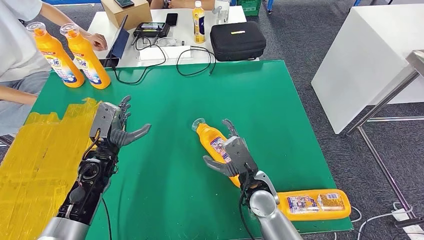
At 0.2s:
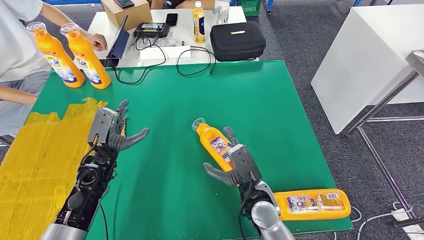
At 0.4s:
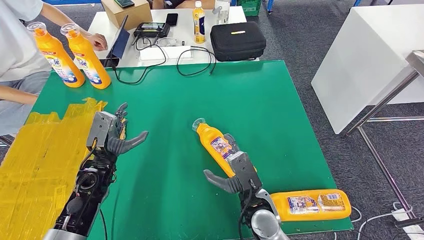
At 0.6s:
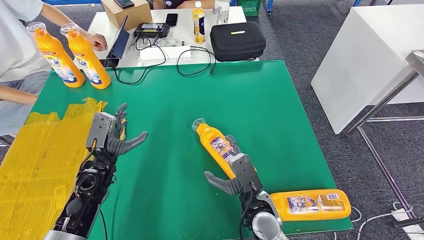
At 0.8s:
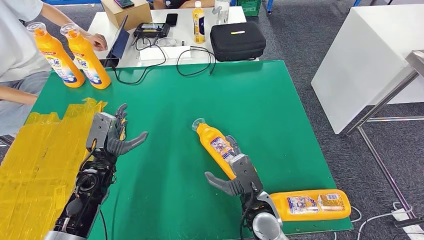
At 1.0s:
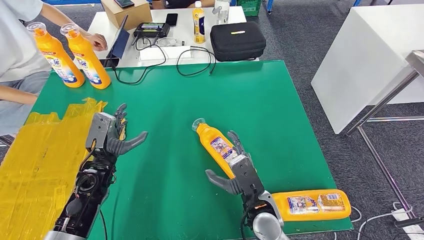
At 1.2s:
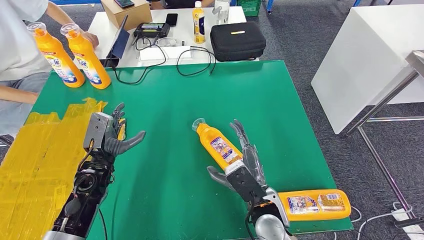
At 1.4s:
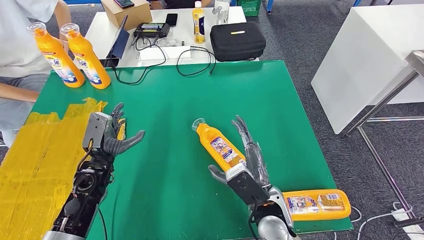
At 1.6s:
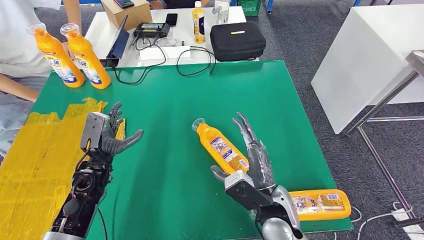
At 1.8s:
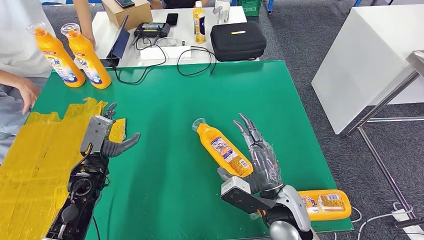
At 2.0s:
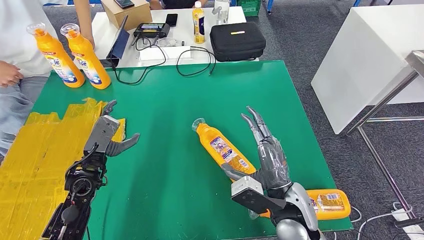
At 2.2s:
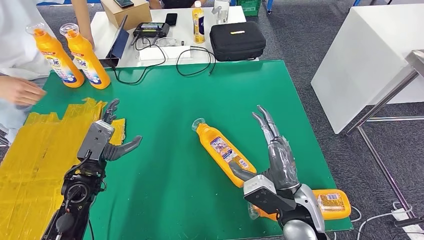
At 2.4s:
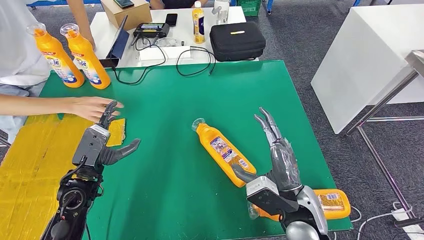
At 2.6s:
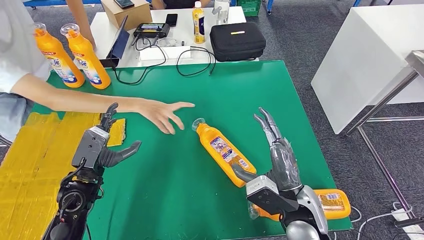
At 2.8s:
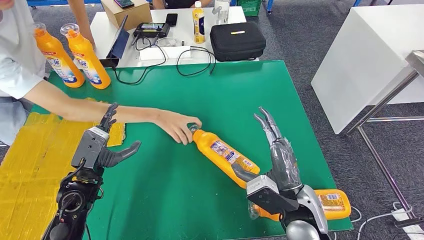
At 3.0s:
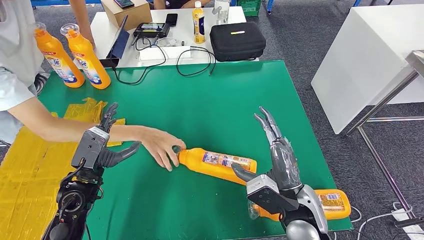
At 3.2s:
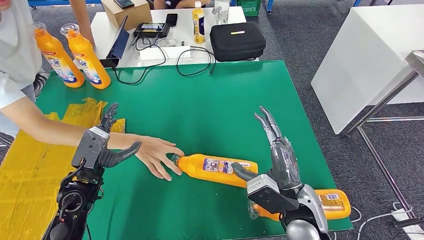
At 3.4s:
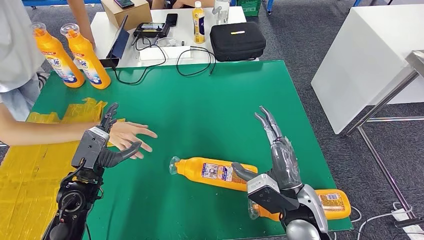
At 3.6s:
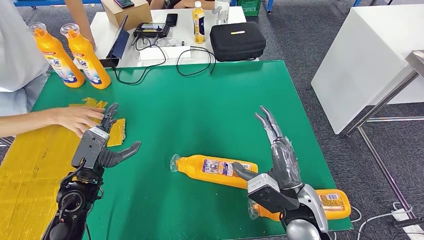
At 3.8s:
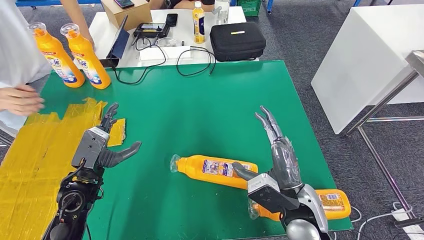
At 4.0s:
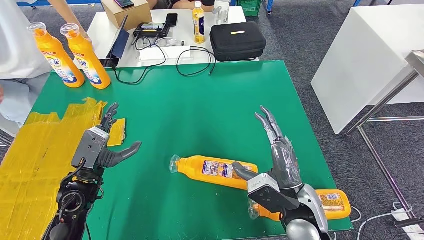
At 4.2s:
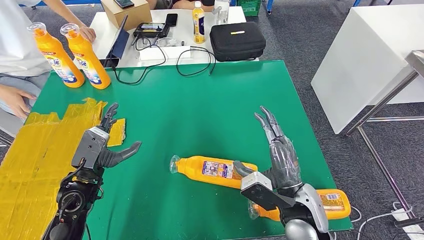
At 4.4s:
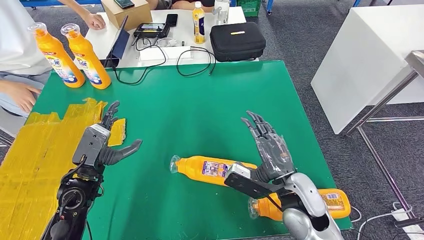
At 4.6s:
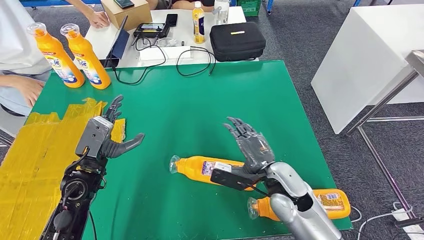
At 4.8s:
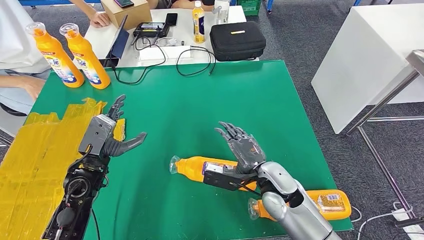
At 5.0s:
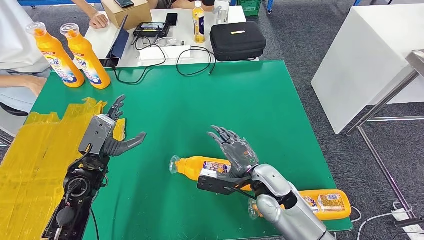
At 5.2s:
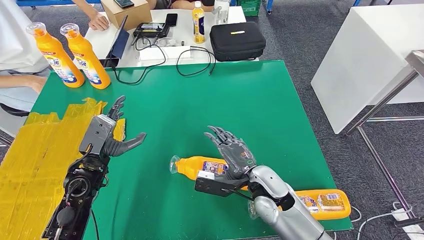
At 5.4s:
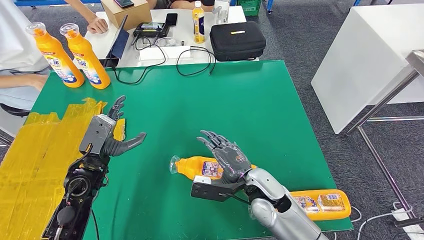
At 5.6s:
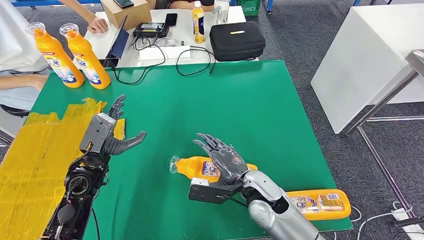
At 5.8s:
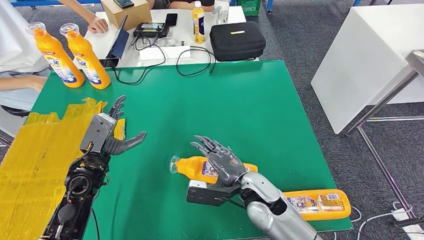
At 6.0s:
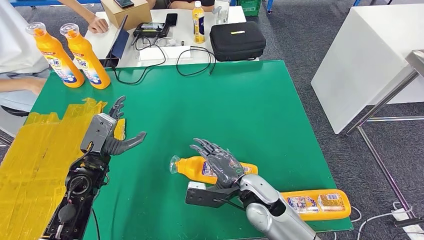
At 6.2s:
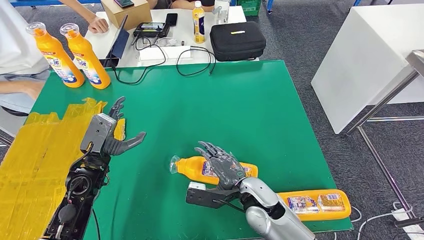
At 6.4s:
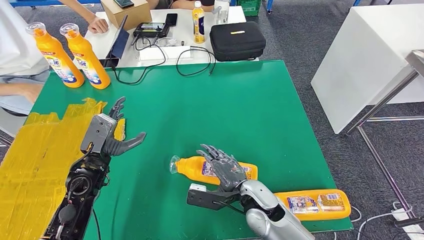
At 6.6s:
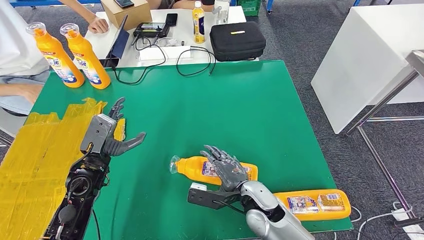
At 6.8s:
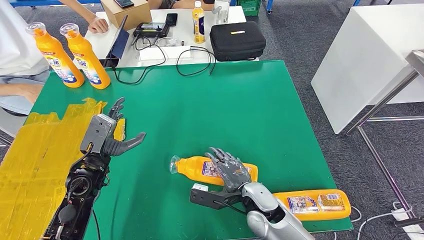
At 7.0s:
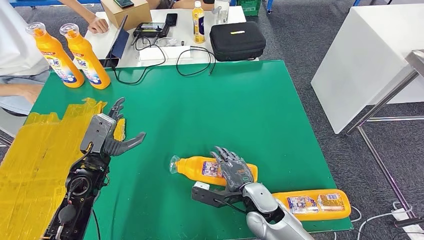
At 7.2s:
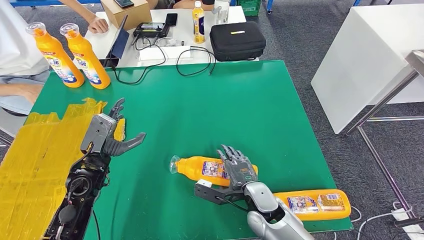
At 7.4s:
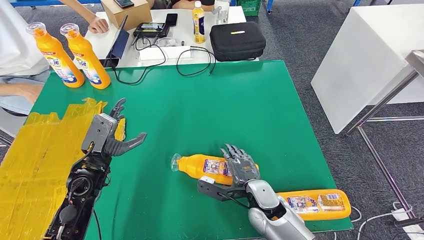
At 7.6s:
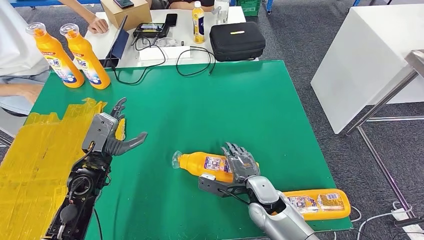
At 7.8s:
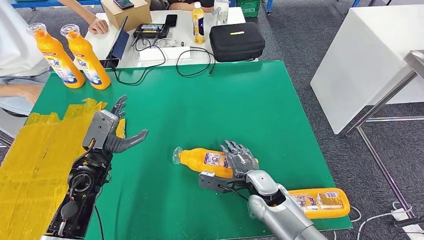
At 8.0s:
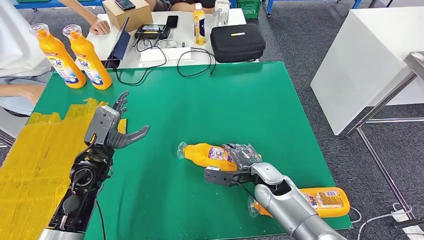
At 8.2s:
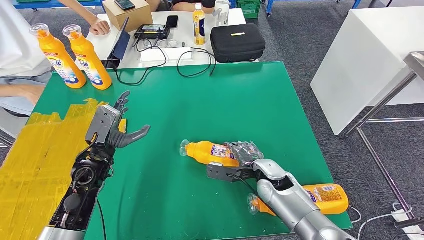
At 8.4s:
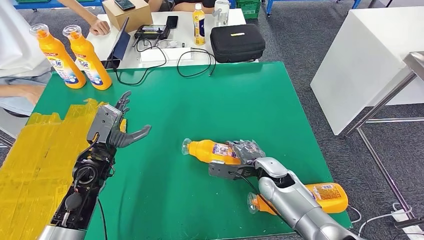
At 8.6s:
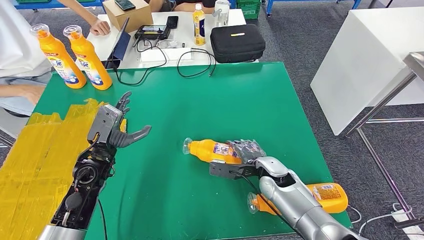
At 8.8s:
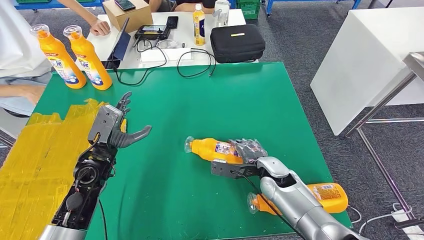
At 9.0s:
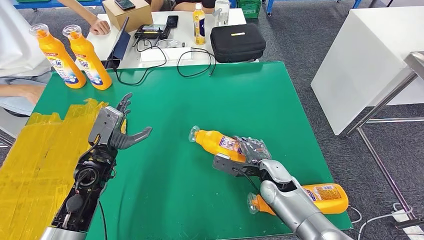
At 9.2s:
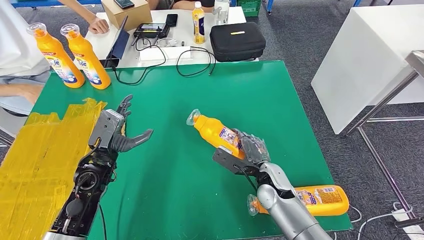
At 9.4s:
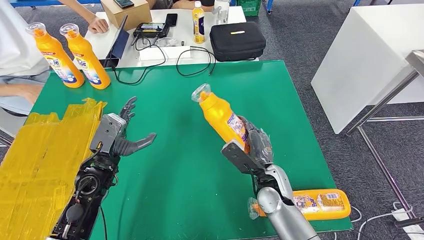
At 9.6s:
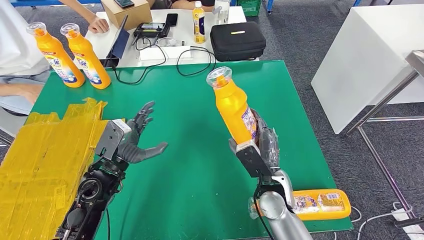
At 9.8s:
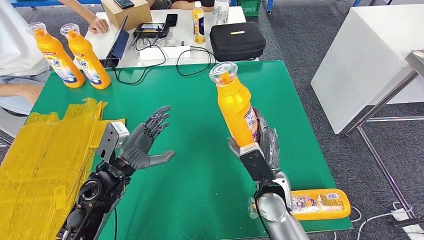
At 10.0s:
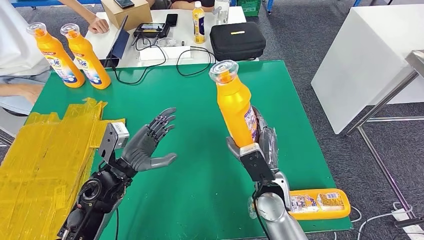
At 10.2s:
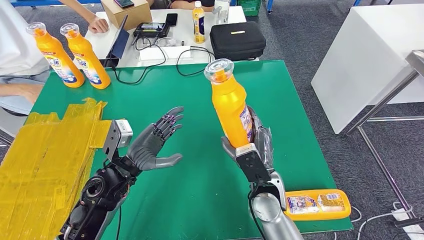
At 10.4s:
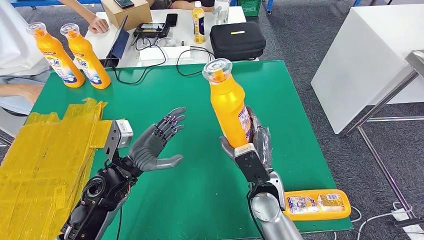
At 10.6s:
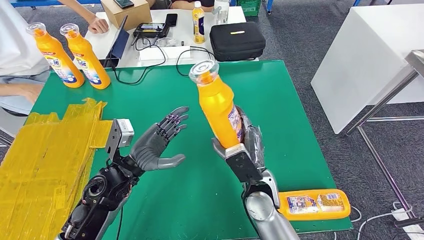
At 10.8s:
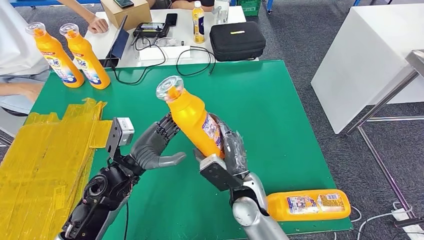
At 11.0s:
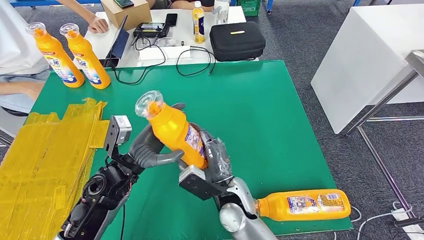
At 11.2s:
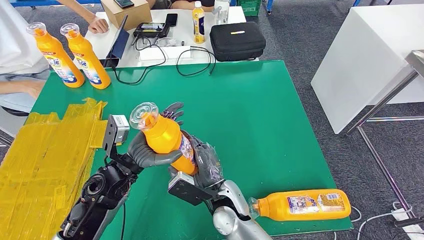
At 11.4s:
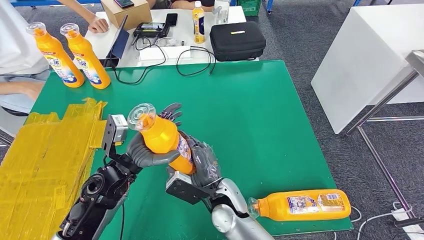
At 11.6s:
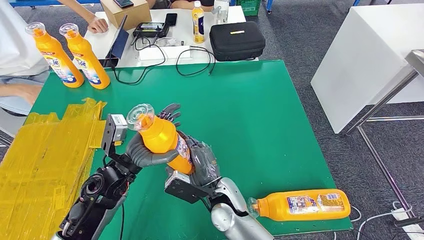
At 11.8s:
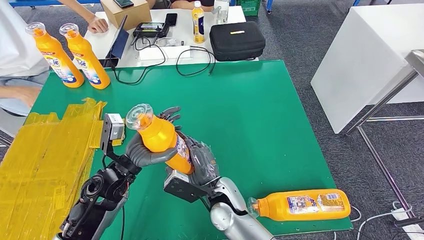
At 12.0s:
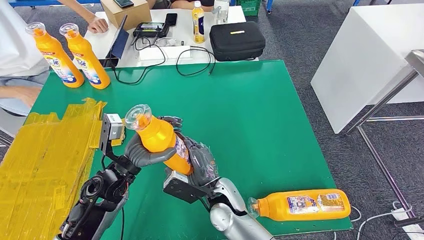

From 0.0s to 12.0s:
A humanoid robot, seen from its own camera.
Step, from 0.0s to 11.0s: Pick up the bottle from the table.
From 0.0s to 1.6s: The right hand moves roughly 5 cm.
From 4.4s to 6.0s: The right hand heads to the left, covering about 10 cm.
From 6.0s to 7.6s: The right hand travels downward by some 5 cm.
From 7.6s to 9.0s: The right hand changes place by roughly 5 cm.
From 10.4s to 12.0s: The right hand moves to the left, about 10 cm.

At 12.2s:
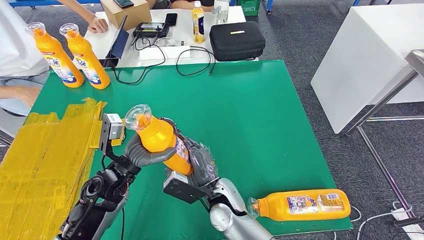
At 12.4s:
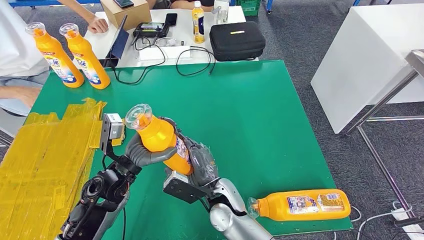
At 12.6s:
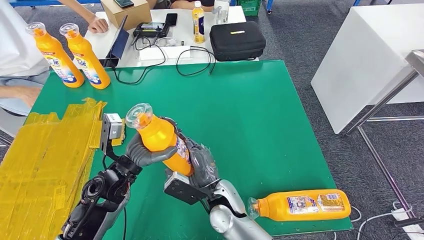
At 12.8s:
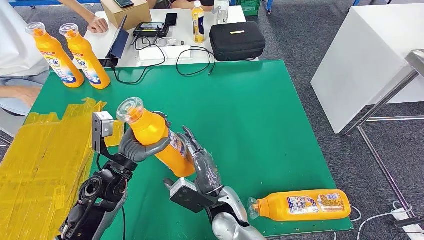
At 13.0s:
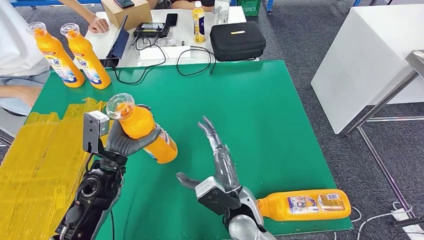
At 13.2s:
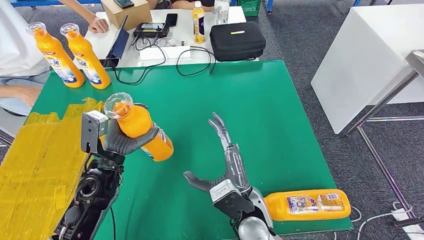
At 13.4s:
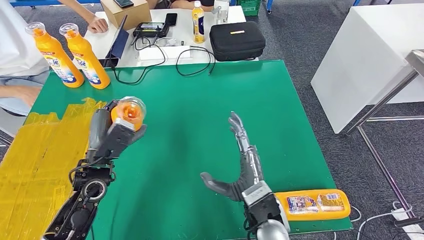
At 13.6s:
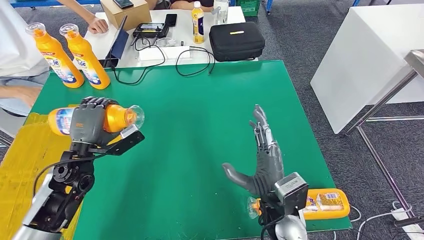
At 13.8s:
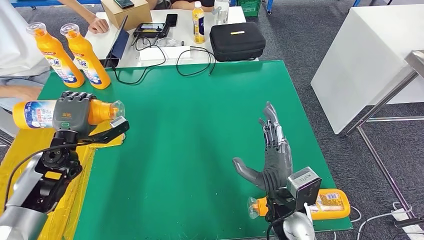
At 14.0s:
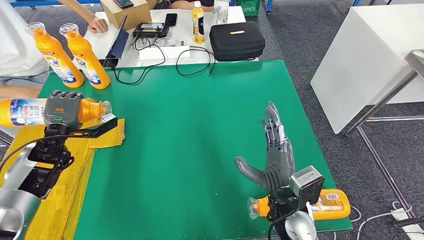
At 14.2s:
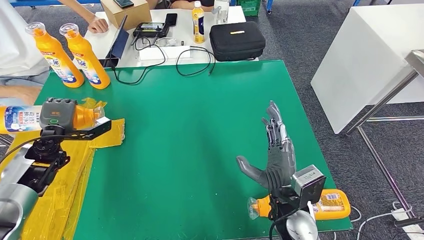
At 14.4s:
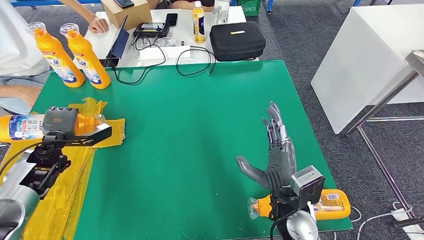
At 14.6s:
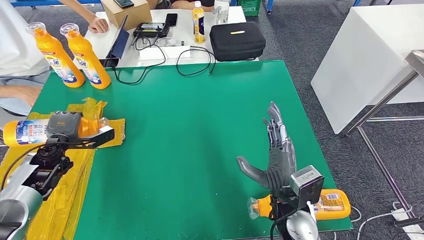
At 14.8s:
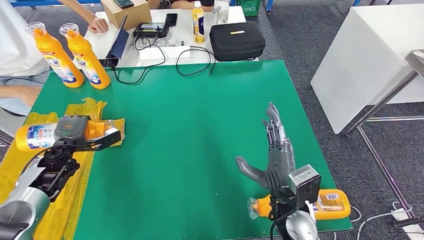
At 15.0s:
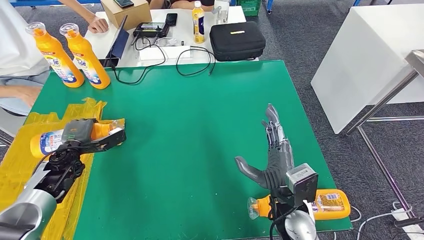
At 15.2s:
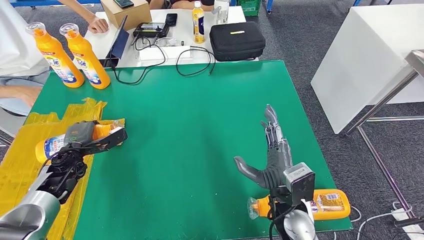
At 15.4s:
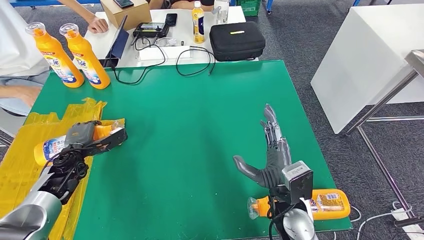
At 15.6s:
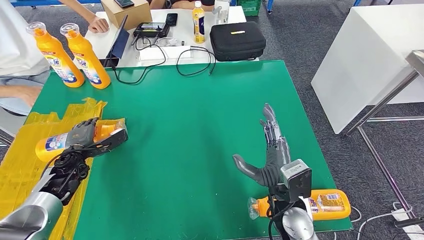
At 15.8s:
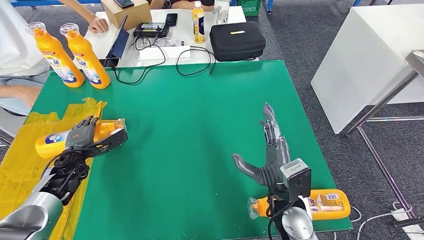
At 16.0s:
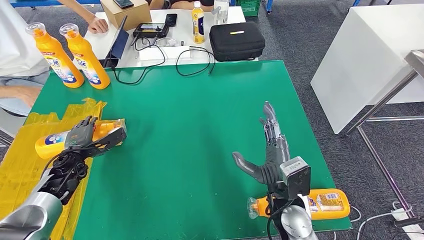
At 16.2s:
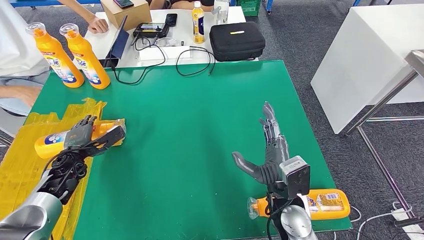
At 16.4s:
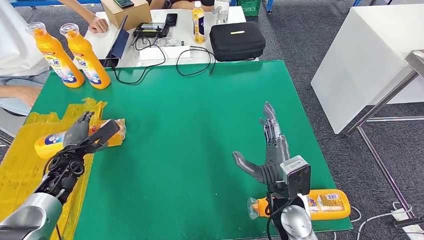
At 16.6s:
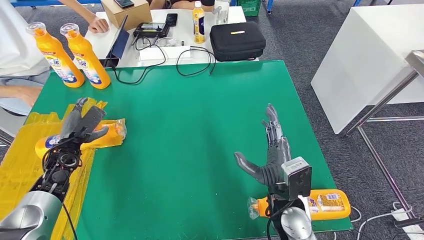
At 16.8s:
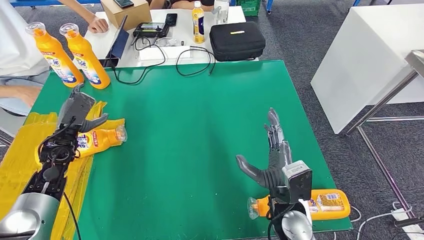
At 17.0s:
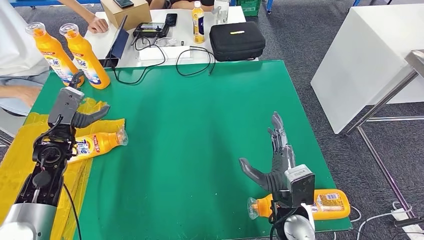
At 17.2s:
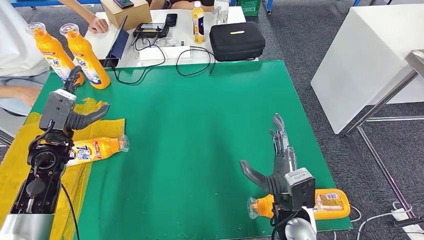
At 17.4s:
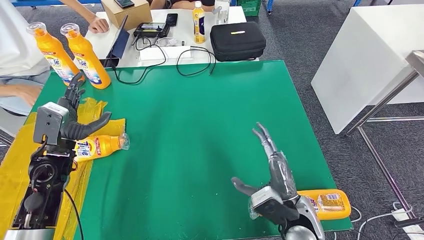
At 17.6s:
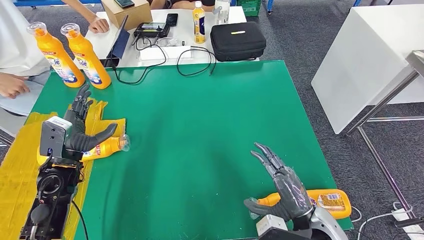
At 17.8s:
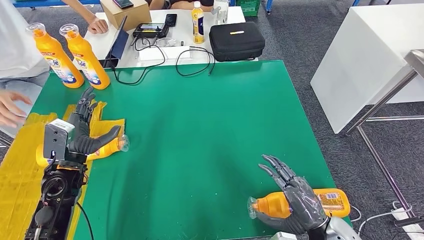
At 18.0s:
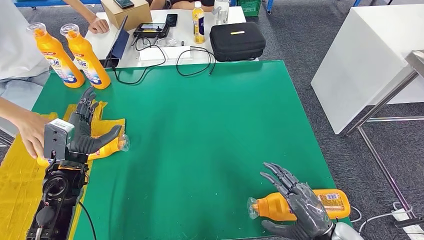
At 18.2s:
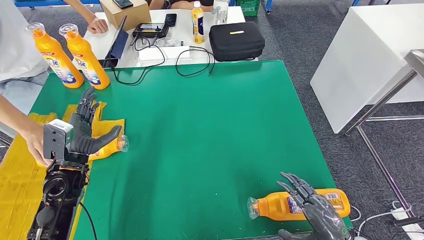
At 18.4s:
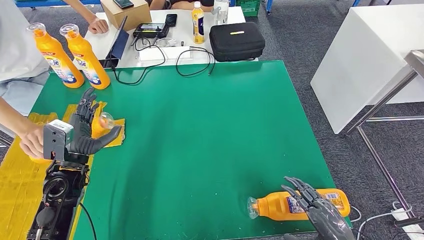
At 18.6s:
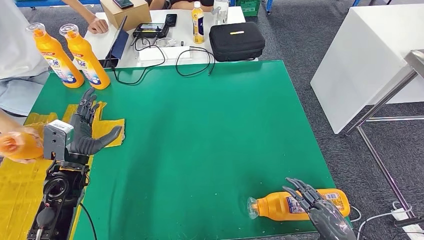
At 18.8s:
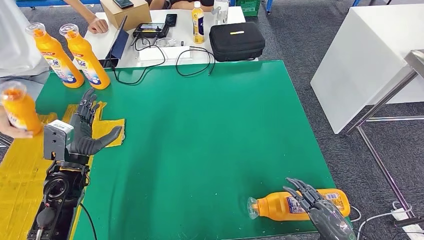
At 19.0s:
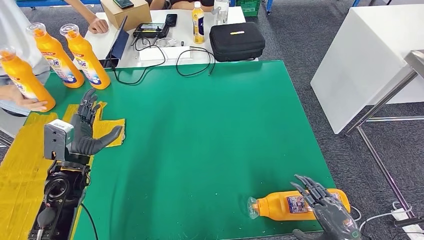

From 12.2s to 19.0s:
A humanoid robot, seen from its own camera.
Step, from 12.2s to 15.6s: Flip the bottle to face forward.
From 13.6s to 15.0s: The left hand moves to the left and downward, some 10 cm.
From 15.0s to 16.2s: There are only small adjustments of the hands.
From 16.2s to 17.6s: The right hand is displaced to the right and backward by roughly 10 cm. Meanwhile the left hand moves upward, roughly 5 cm.
From 17.6s to 19.0s: The right hand is displaced to the right and backward by some 15 cm.
